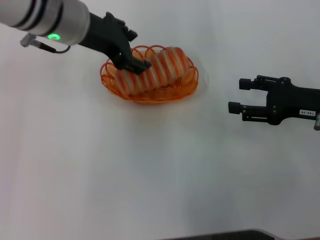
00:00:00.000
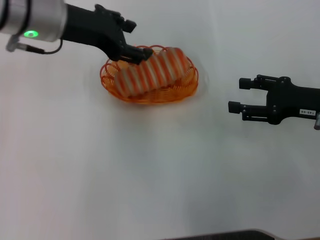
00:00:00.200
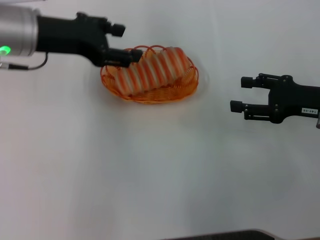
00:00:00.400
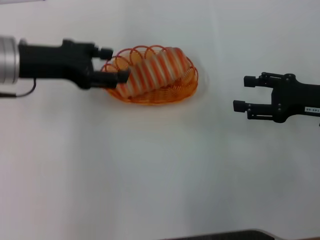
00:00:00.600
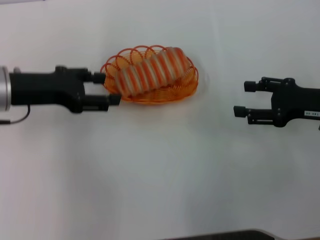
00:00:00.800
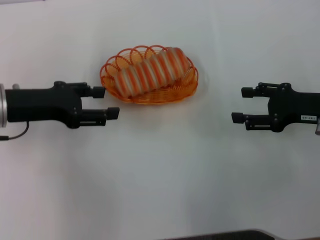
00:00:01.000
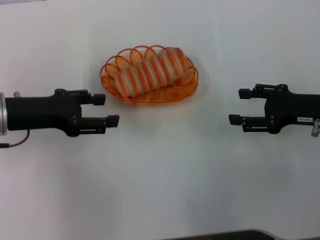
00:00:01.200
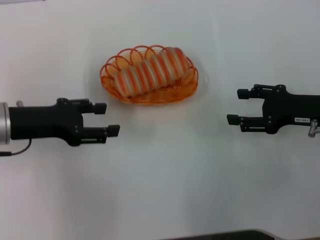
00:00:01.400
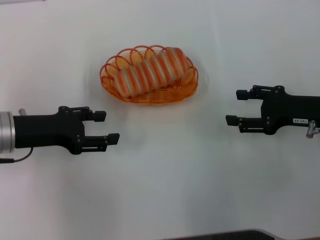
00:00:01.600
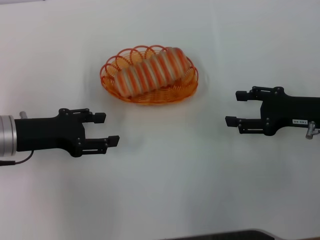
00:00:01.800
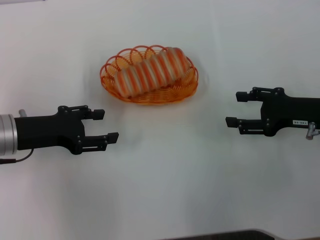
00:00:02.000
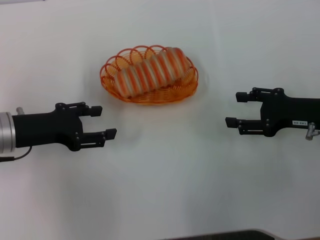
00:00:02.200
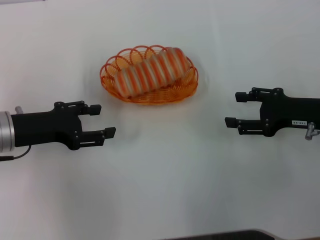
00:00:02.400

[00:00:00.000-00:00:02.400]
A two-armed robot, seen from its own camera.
00:00:00.000 to 00:00:01.200: The left gripper travels to the left, downward and backward by some 15 cm.
00:00:01.200 to 00:00:02.400: The grippers move only a little.

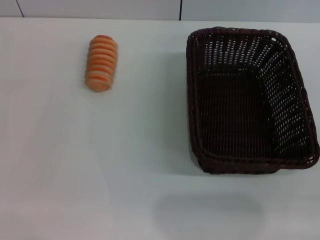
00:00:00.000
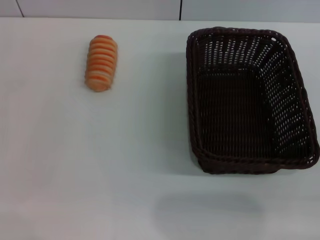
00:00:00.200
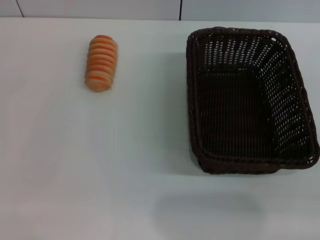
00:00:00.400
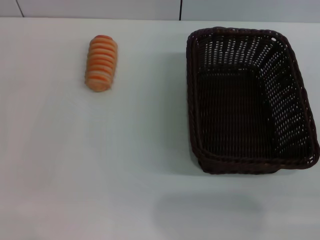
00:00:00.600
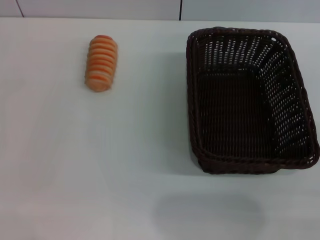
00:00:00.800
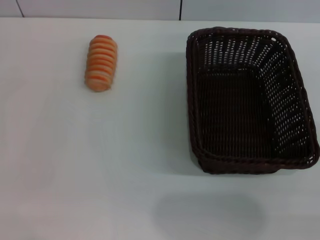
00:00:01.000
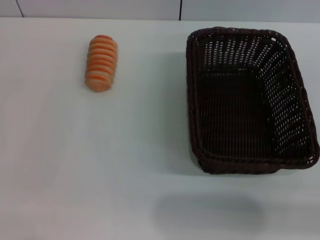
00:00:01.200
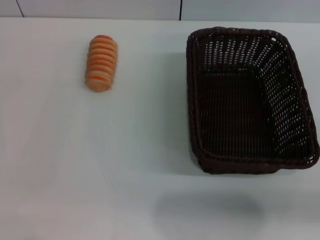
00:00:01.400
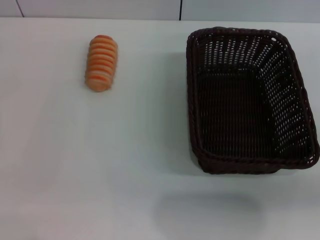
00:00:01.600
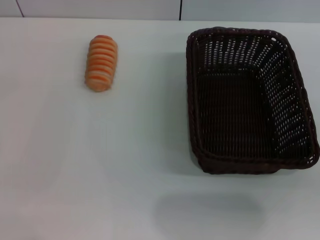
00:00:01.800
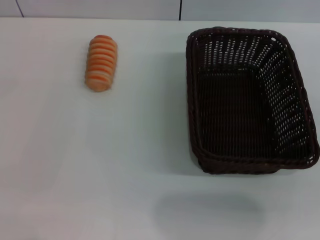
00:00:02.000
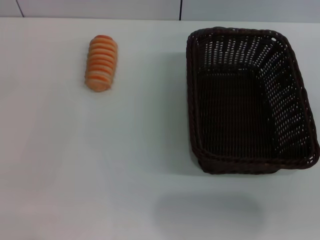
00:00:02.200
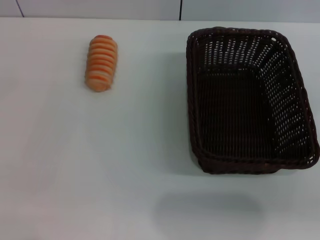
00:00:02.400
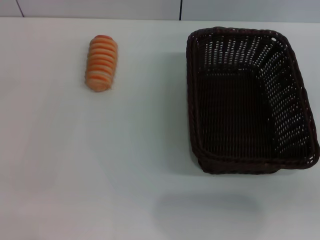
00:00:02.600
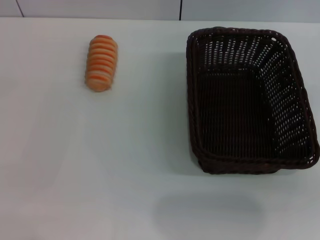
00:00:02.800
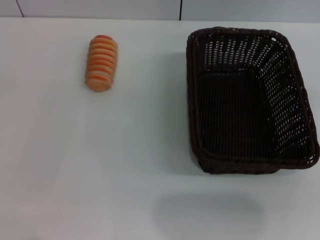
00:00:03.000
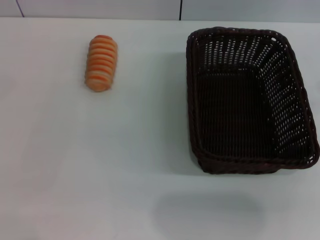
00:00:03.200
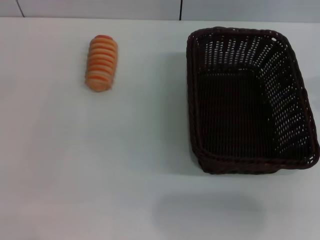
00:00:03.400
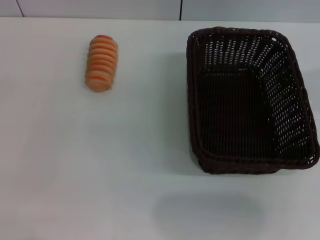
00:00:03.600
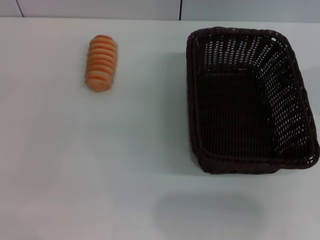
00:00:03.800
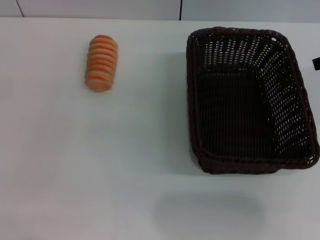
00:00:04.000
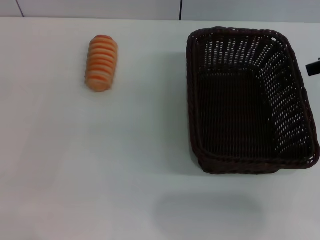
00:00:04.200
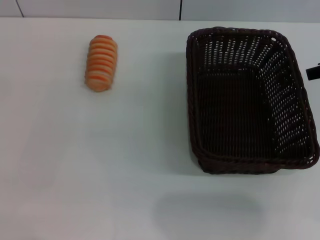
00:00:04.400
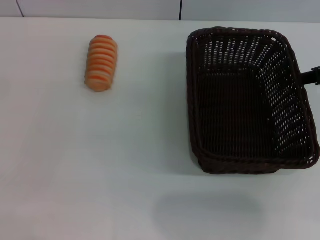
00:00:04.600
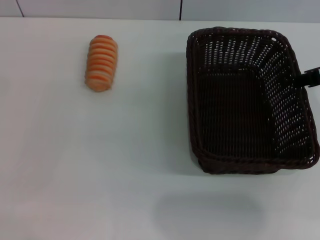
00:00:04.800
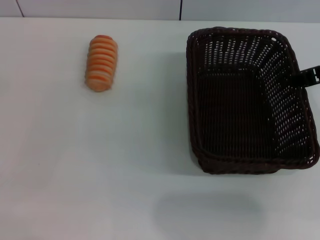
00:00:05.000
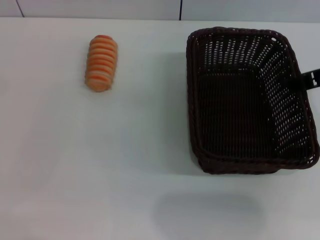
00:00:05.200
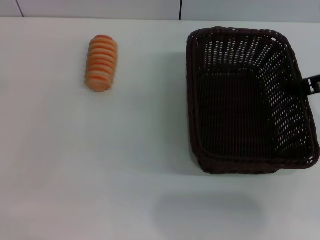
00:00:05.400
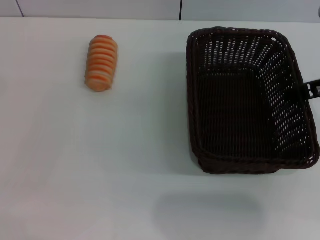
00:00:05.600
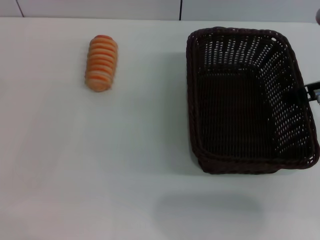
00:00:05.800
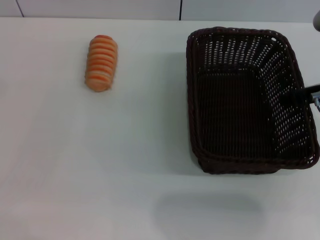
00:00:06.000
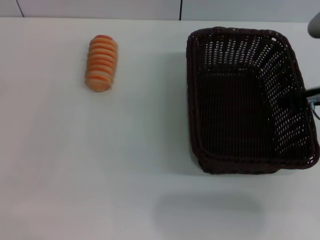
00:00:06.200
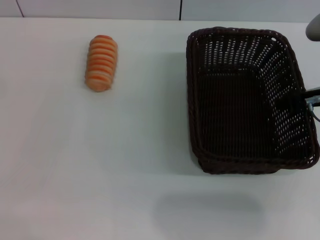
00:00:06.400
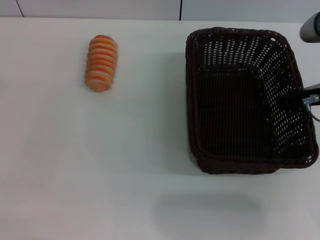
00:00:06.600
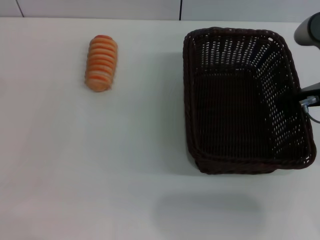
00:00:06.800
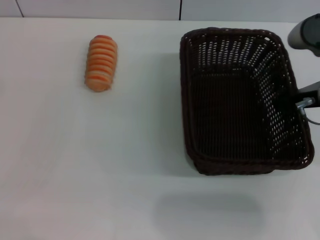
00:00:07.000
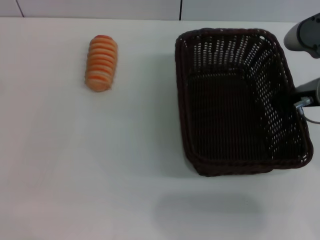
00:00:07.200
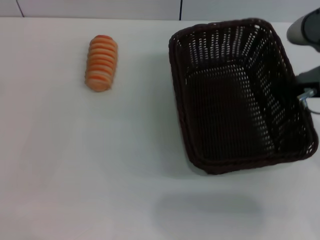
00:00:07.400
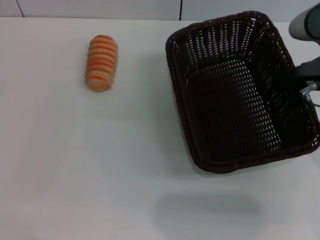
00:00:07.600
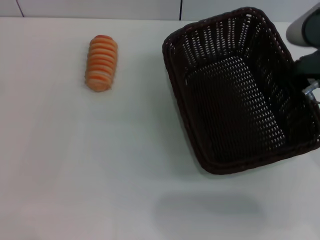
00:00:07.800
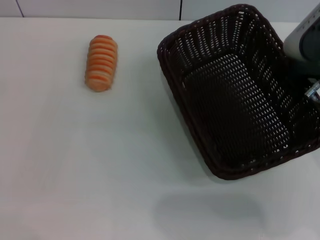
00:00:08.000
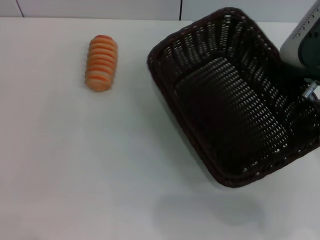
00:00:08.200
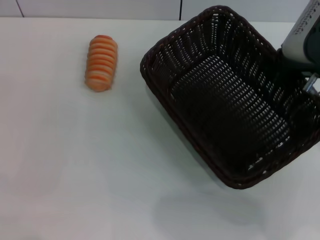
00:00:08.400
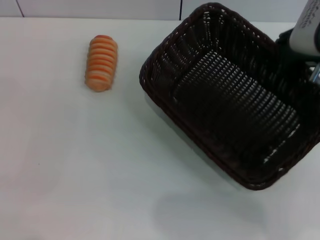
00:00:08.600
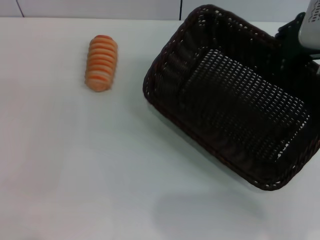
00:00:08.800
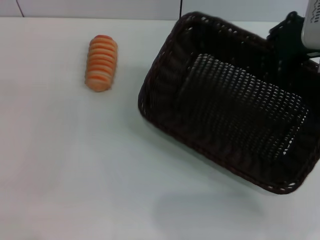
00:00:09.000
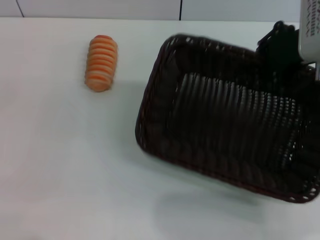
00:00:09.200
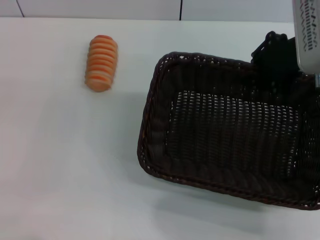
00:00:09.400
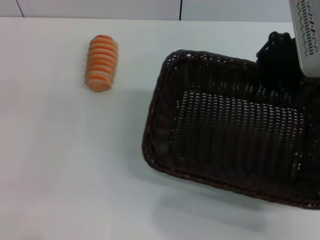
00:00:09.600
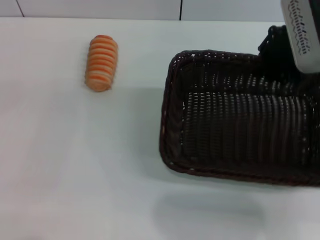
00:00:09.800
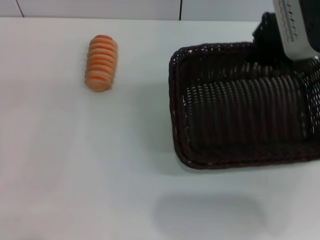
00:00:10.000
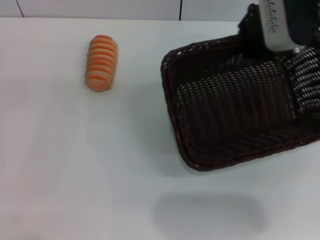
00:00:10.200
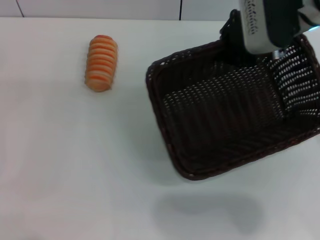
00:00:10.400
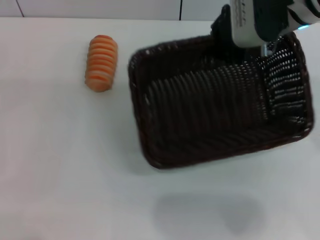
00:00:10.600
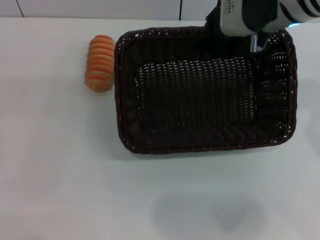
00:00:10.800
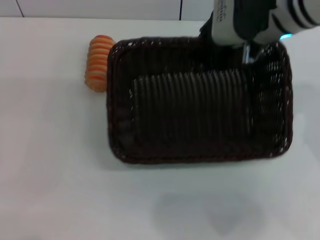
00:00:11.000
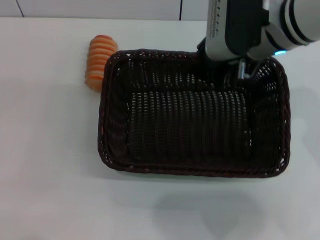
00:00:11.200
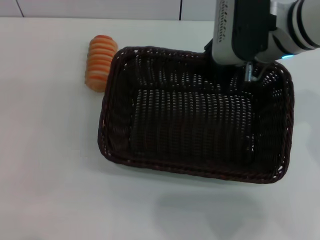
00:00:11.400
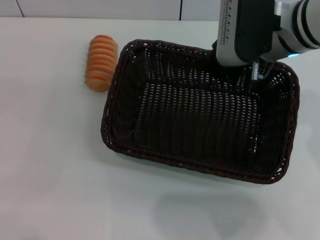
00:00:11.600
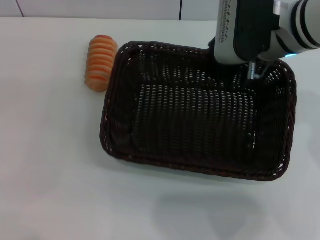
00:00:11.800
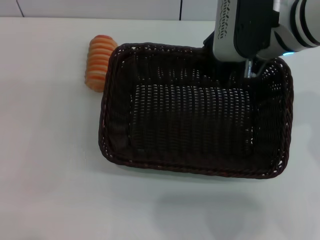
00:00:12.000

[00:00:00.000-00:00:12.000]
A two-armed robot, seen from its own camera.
Step, 00:00:00.000 to 00:00:08.200: Pick up the dark basket with the right gripper.
00:00:04.400 to 00:00:06.000: The right gripper travels downward by approximately 5 cm.
00:00:06.000 to 00:00:07.600: The right gripper closes its fingers.
00:00:07.600 to 00:00:09.000: The right gripper moves roughly 5 cm.
00:00:09.000 to 00:00:10.400: The right gripper goes roughly 10 cm to the left and forward.

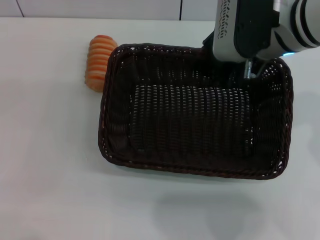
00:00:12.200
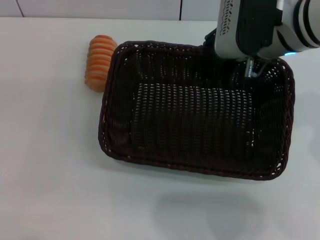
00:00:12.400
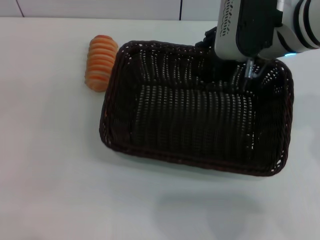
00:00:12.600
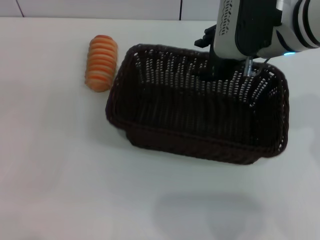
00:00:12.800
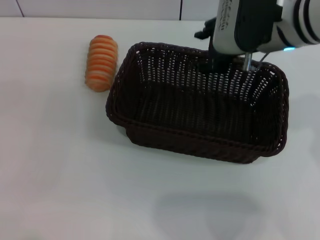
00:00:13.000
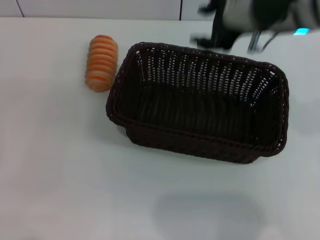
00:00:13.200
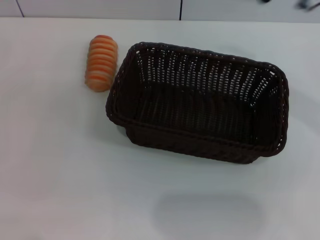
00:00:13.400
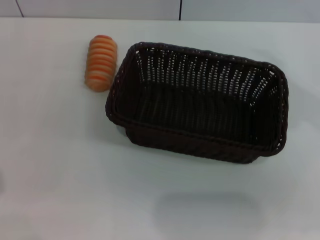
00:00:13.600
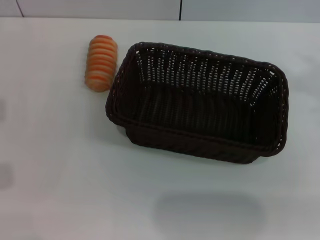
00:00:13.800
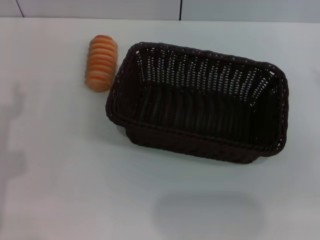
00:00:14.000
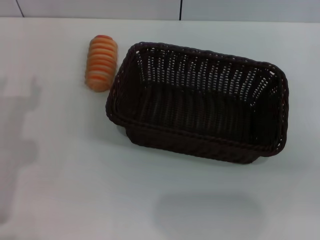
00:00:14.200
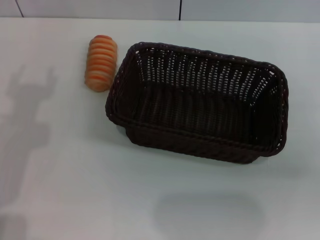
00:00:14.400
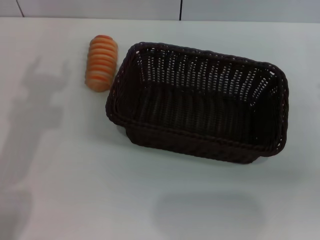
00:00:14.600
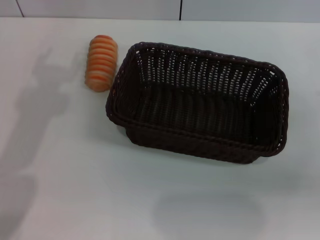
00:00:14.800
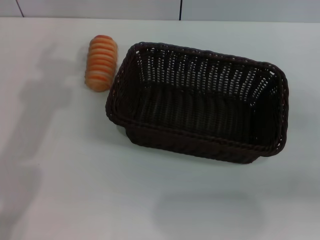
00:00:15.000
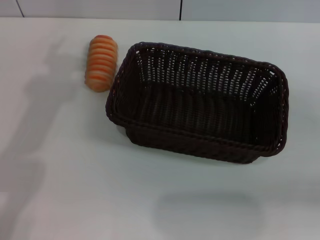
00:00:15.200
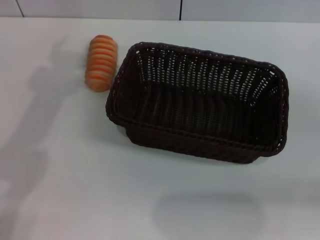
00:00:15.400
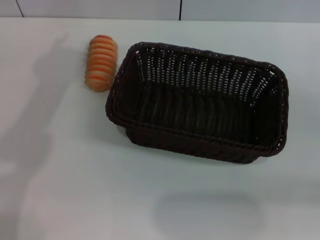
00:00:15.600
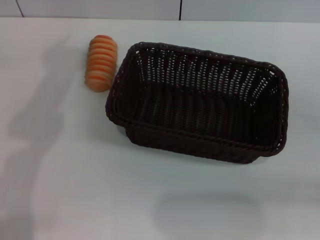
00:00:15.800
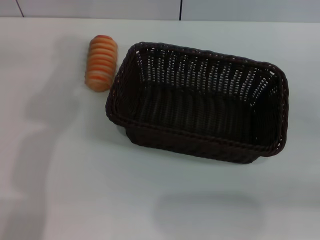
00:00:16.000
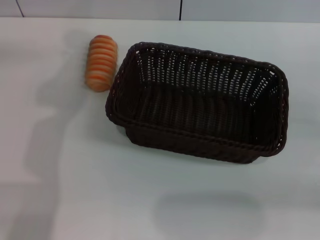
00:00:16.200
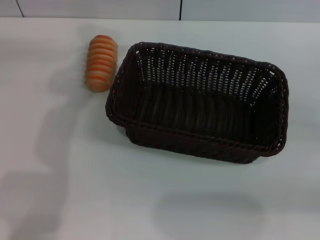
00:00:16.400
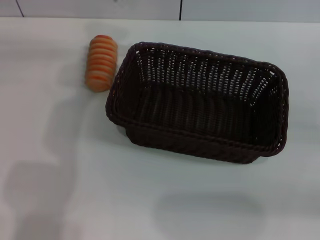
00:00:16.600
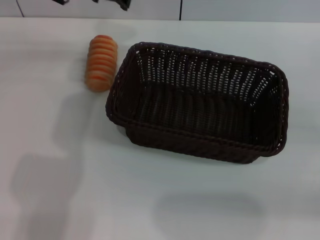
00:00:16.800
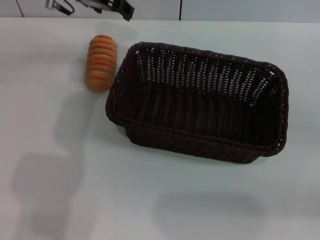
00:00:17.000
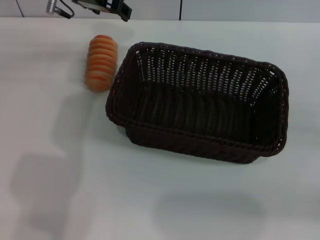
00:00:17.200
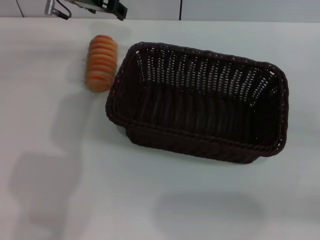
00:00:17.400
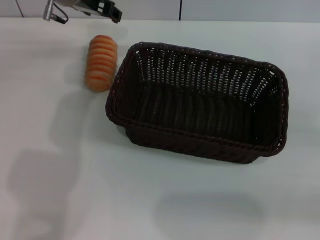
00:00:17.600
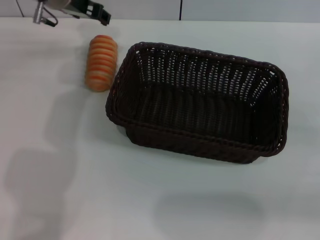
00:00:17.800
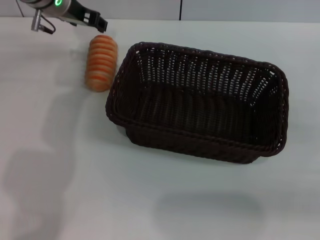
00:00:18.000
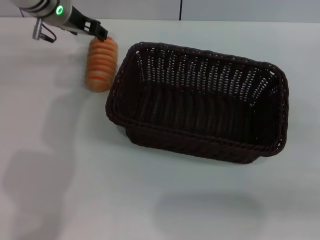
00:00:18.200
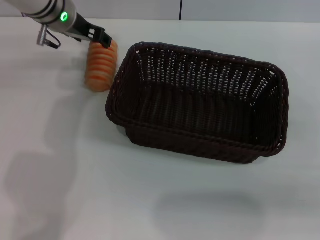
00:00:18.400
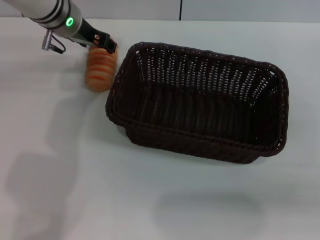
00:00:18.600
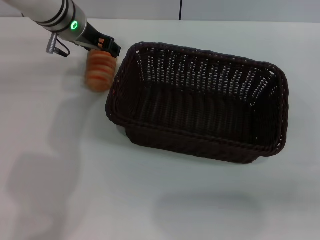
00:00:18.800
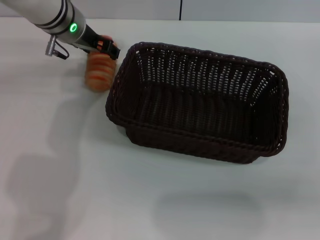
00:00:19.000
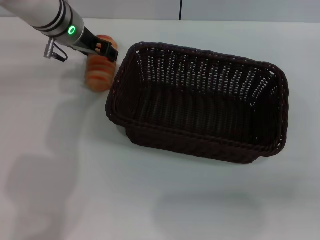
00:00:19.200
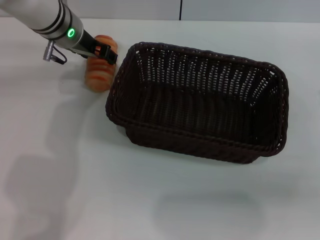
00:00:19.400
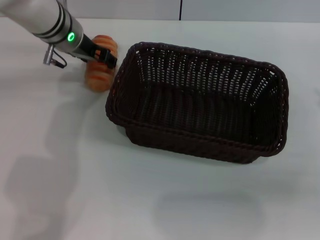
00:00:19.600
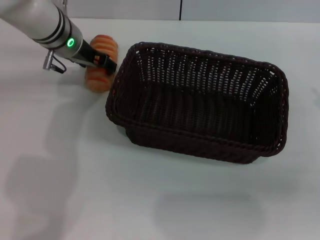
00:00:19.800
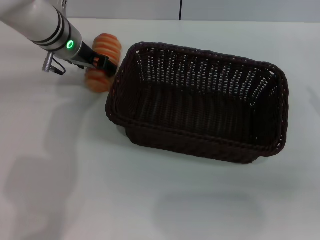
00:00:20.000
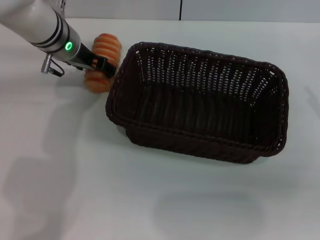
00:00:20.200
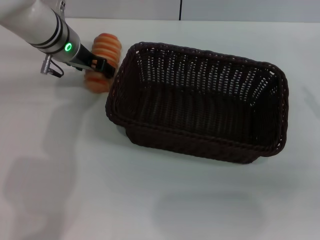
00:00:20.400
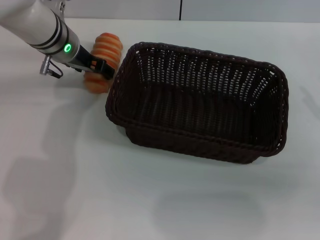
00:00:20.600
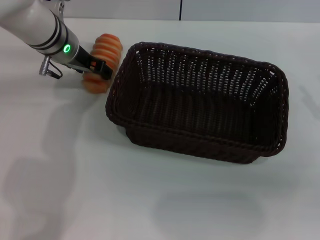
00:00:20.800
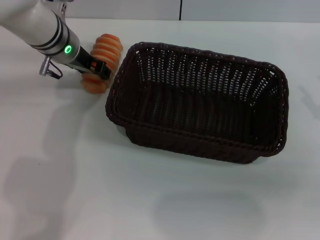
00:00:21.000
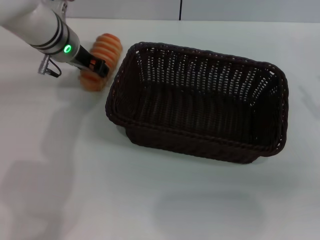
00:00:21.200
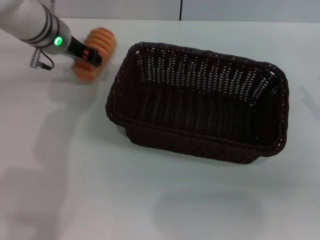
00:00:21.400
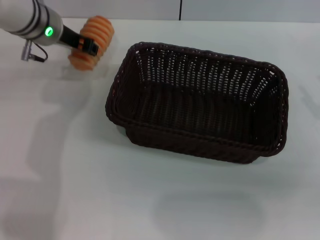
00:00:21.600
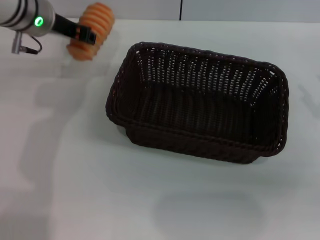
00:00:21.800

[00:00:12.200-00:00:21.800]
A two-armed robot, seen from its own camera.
Step, 00:00:13.000 to 00:00:21.600: Pick up the long bread with the left gripper.
00:00:12.200 to 00:00:13.800: The left gripper moves upward, approximately 5 cm, while the right gripper goes roughly 20 cm to the right and backward, and opens.
00:00:13.800 to 00:00:15.400: The right gripper goes some 15 cm downward, to the right and backward.
00:00:15.400 to 00:00:17.000: The left gripper goes roughly 20 cm forward and to the right.
00:00:17.000 to 00:00:18.600: The left gripper is displaced downward by approximately 5 cm.
00:00:18.600 to 00:00:20.200: There are only small adjustments of the grippers.
00:00:20.200 to 00:00:21.800: The left gripper goes about 5 cm upward, and closes.
